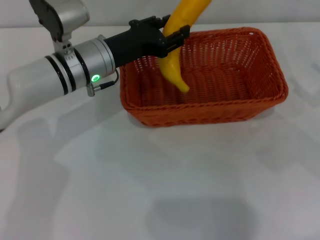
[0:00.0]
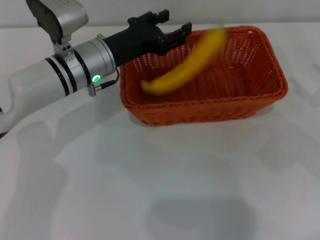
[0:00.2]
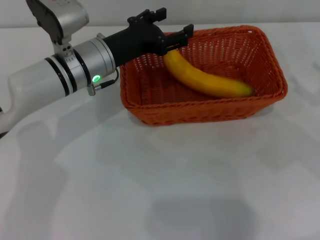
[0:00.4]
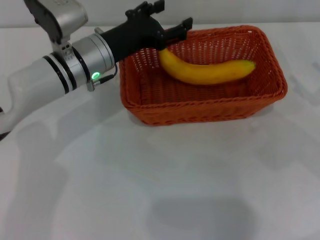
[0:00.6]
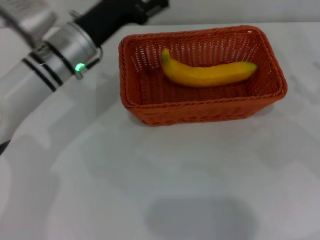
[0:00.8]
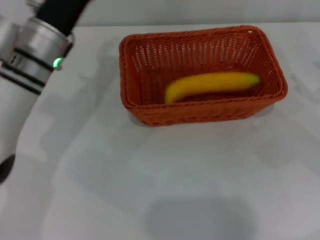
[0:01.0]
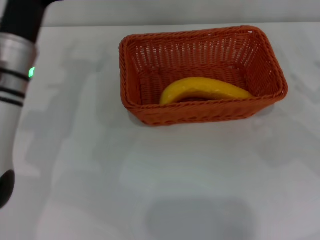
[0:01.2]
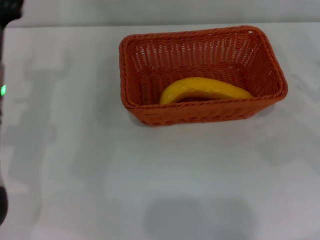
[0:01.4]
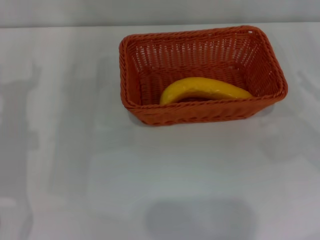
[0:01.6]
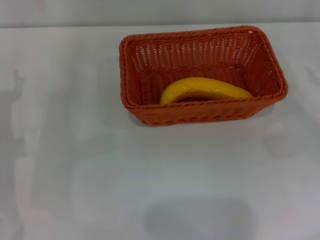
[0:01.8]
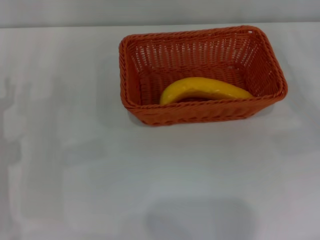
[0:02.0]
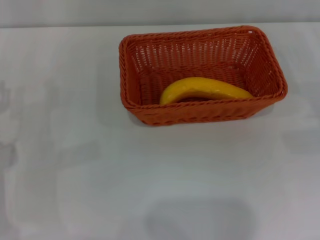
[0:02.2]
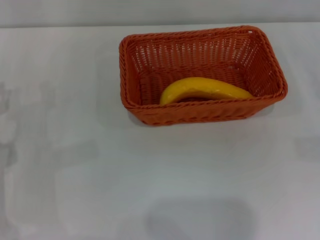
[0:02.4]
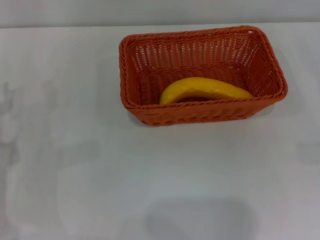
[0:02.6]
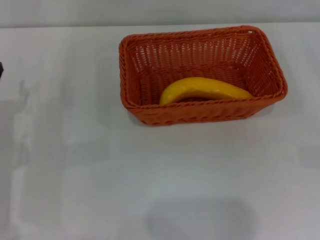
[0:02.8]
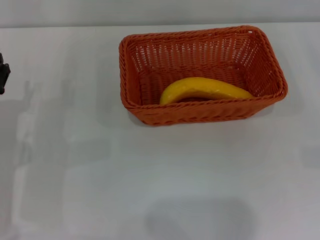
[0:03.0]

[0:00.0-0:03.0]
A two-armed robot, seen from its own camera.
0.0 to 1.6 s: The left gripper travels to the left and backward by approximately 15 cm, and opens up.

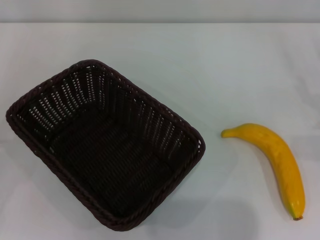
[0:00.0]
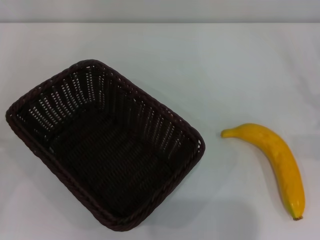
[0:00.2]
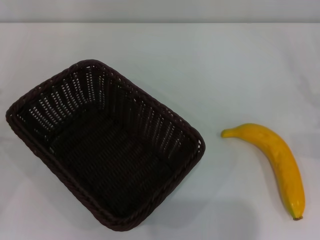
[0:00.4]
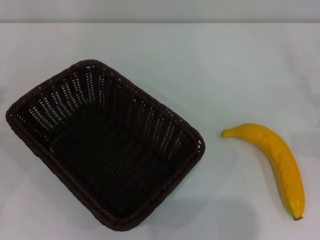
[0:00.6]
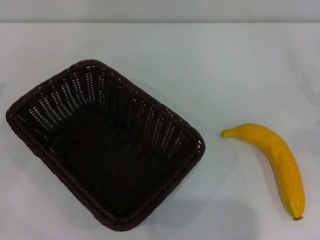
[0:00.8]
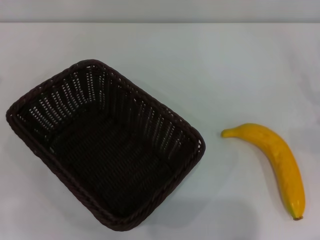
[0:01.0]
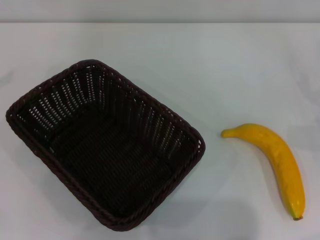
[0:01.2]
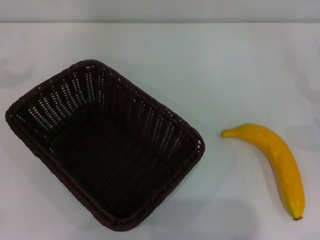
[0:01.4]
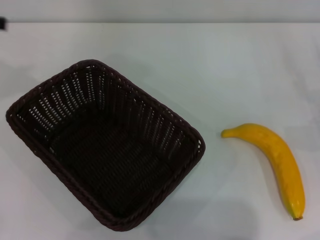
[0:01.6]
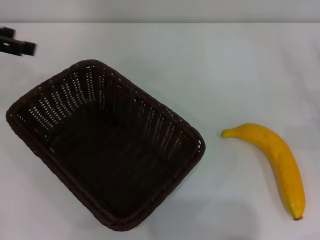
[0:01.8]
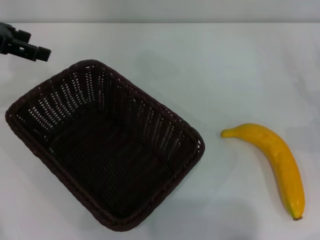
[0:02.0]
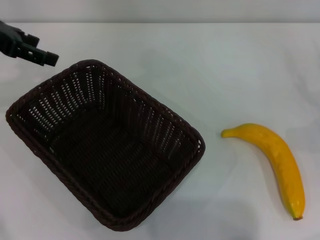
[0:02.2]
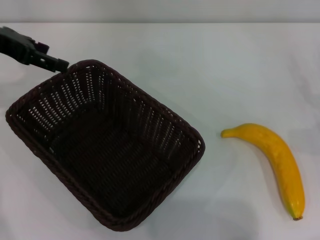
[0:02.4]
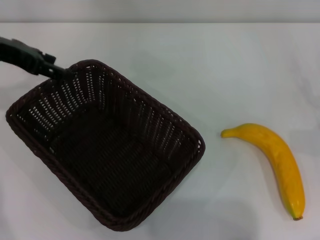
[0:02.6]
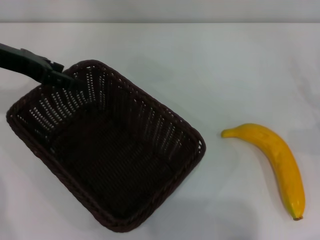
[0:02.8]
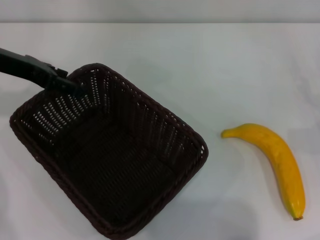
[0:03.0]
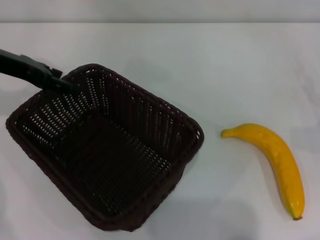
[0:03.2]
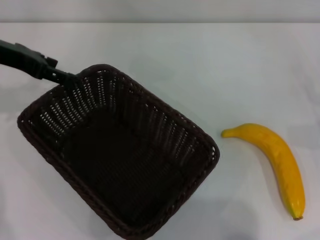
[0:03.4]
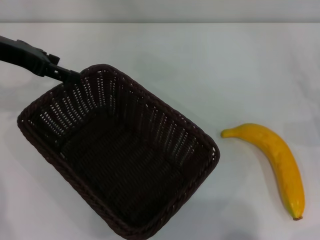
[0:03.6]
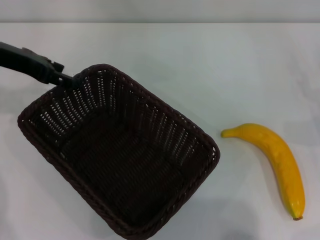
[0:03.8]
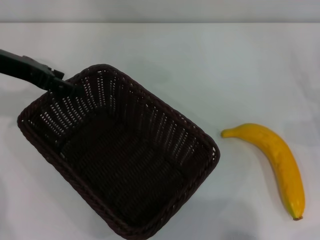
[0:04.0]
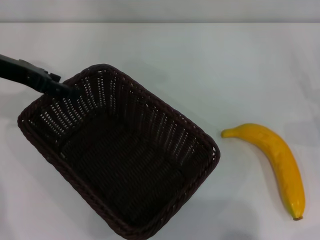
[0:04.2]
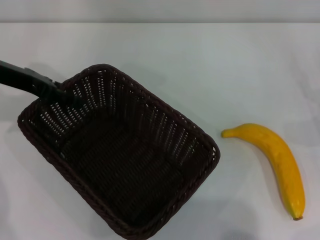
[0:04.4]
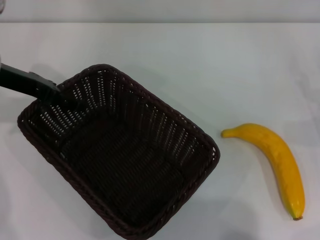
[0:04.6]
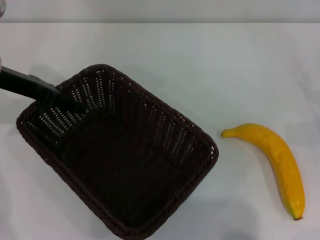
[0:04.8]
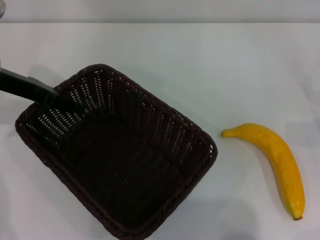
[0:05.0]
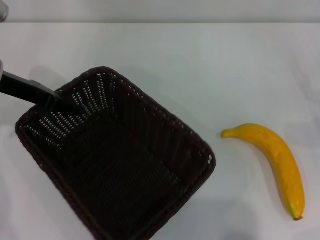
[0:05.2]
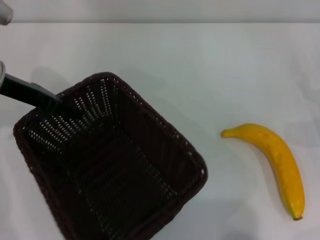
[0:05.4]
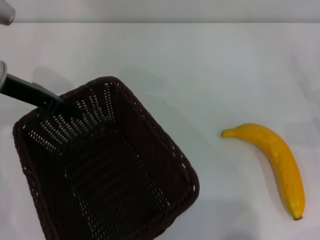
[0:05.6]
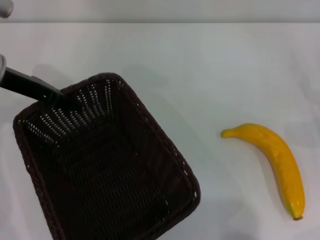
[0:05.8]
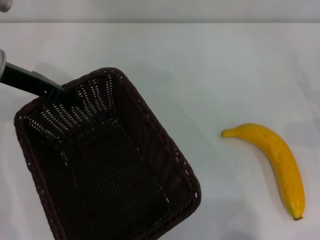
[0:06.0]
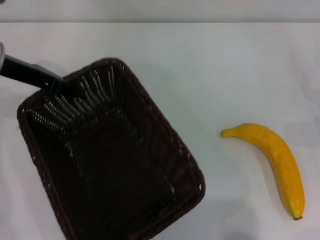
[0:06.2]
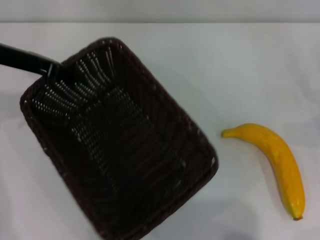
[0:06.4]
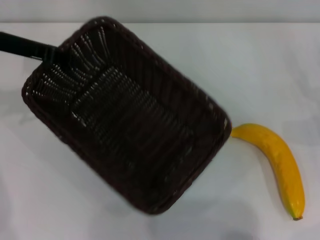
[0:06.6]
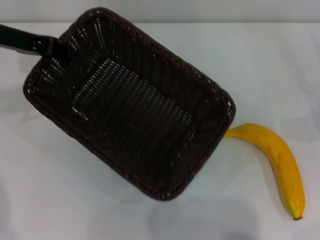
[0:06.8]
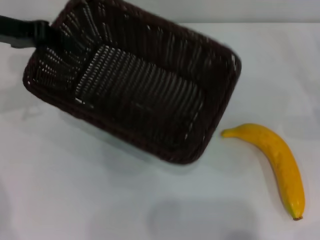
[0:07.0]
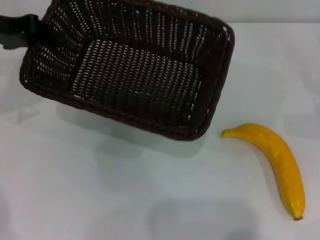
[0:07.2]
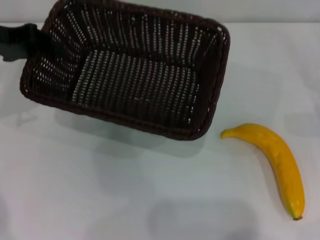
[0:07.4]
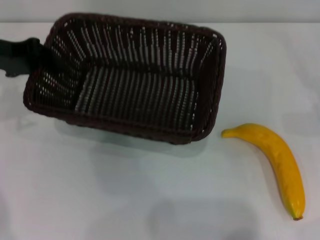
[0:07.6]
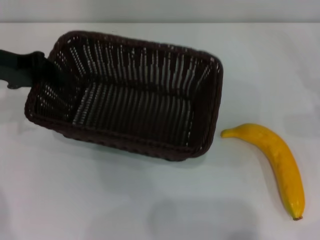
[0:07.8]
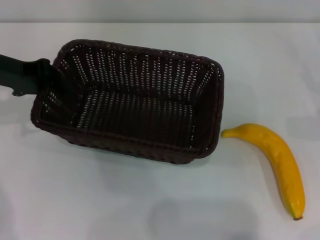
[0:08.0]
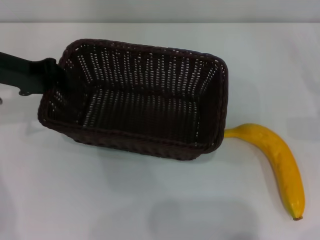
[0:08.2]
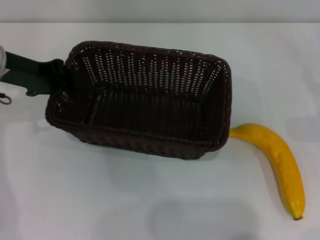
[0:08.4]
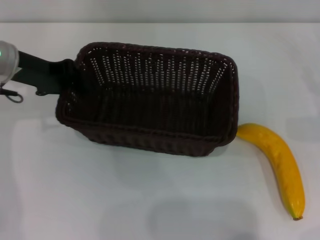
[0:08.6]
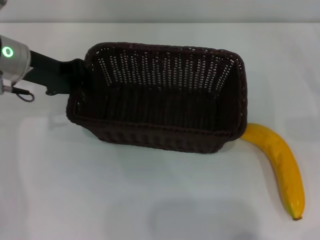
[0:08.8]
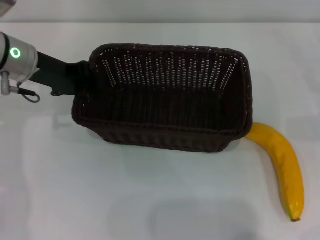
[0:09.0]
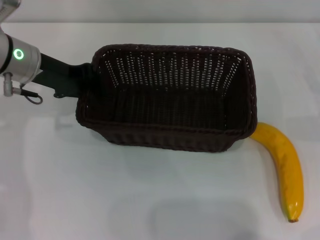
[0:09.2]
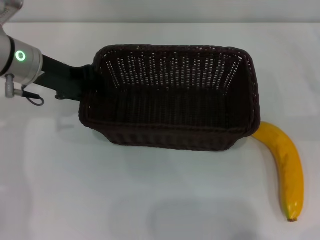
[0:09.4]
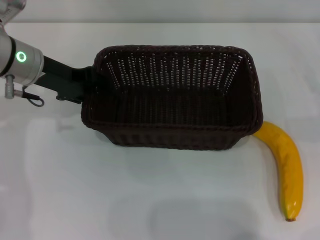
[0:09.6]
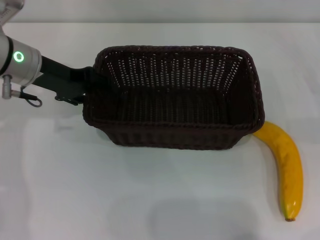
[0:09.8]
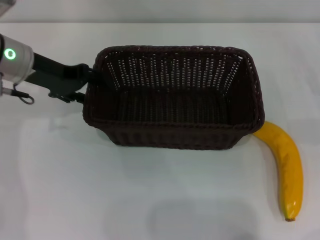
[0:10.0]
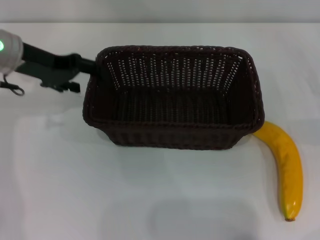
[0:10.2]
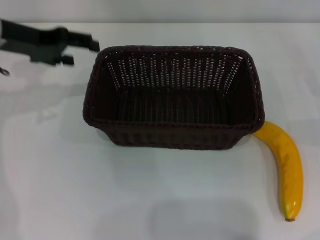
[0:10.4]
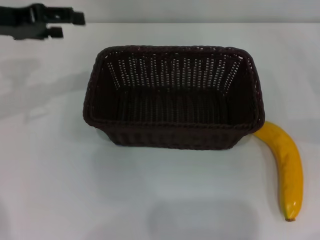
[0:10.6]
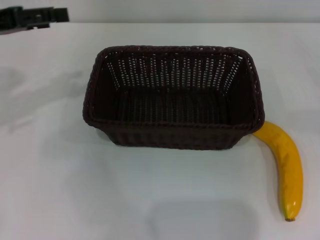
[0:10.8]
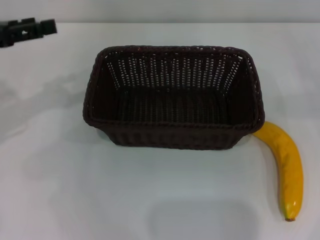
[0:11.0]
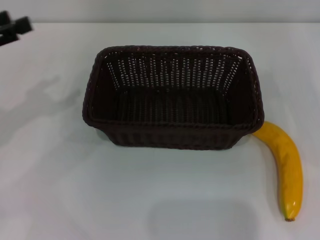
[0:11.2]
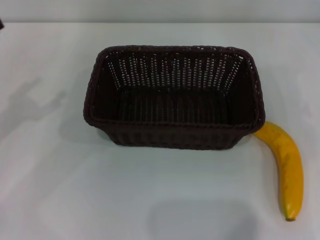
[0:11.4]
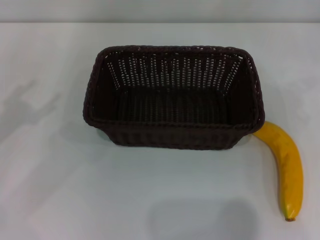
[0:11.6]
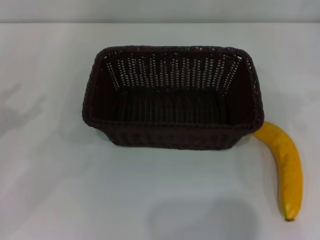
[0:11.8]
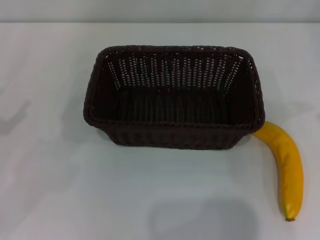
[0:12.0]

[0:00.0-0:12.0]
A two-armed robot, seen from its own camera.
Step, 0.0 to 6.6 s: Pick up the dark basket with the left gripper.
Step, 6.8 to 10.2 s: Place the dark basket in the center of view with the left gripper.
1.6 to 3.0 s: The left gripper travels to the right and downward by roughly 10 cm.
3.0 to 4.4 s: The grippers make only small movements.
4.4 to 6.0 s: The left gripper closes up.
7.6 to 9.0 s: The left gripper shifts about 5 cm to the right.
9.0 to 10.4 s: The left gripper travels upward by about 5 cm, and opens its fingers.
10.4 to 12.0 s: The left gripper goes some 20 cm backward and to the left.

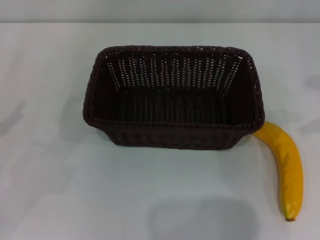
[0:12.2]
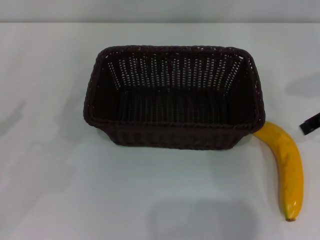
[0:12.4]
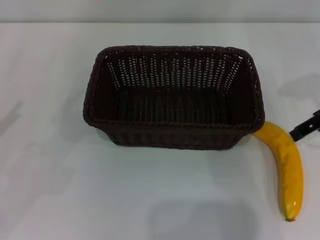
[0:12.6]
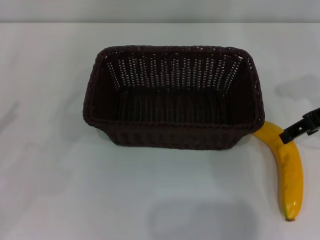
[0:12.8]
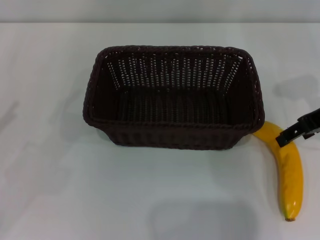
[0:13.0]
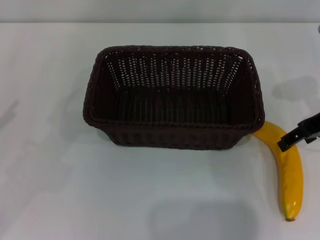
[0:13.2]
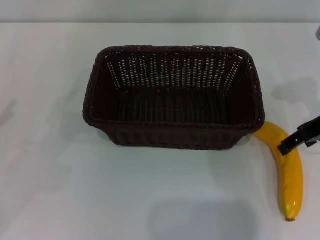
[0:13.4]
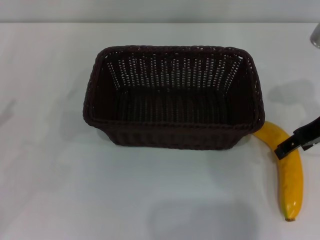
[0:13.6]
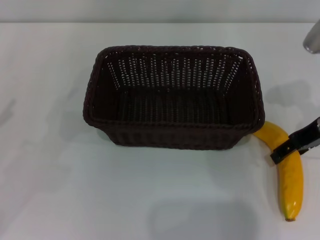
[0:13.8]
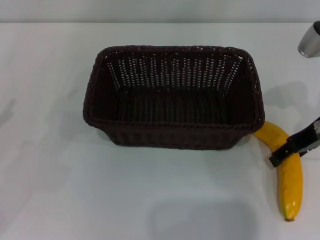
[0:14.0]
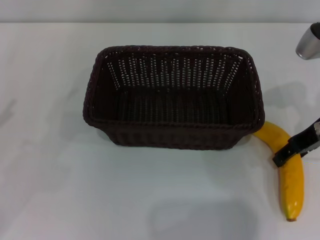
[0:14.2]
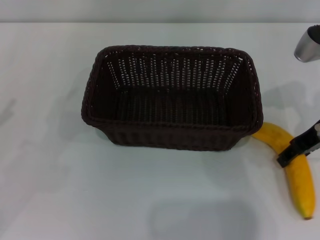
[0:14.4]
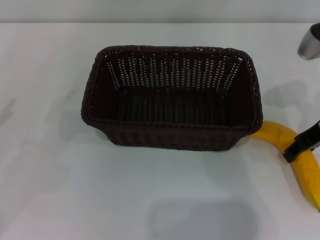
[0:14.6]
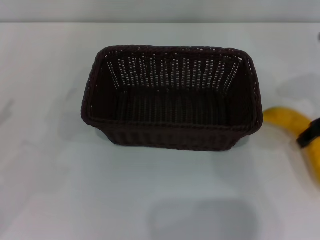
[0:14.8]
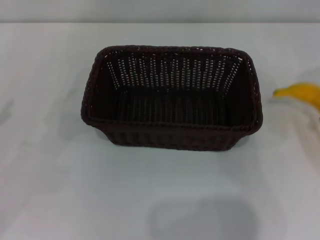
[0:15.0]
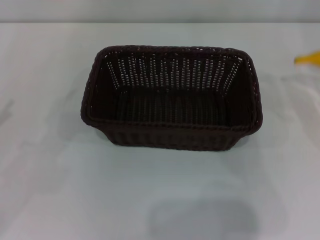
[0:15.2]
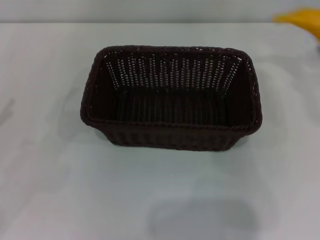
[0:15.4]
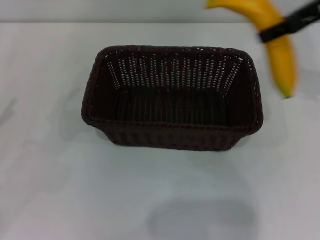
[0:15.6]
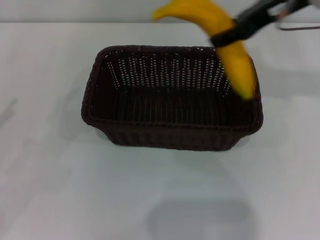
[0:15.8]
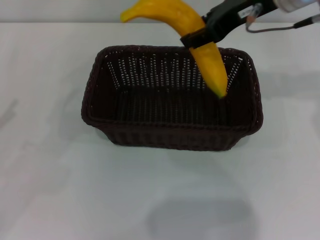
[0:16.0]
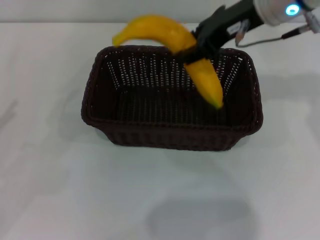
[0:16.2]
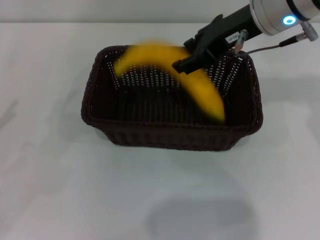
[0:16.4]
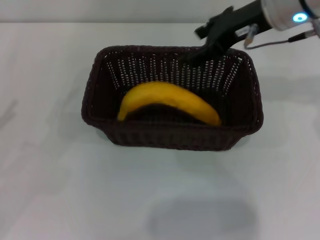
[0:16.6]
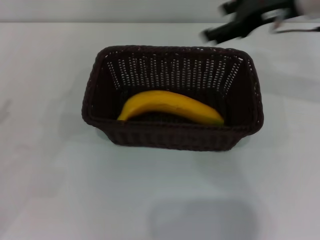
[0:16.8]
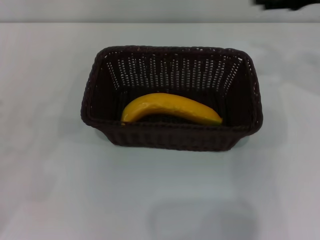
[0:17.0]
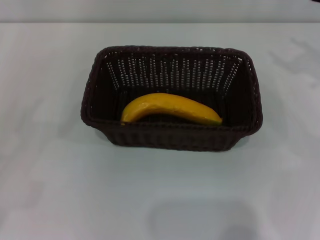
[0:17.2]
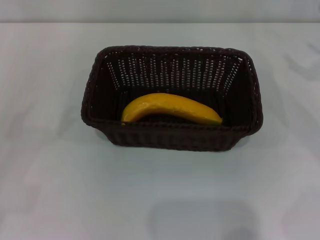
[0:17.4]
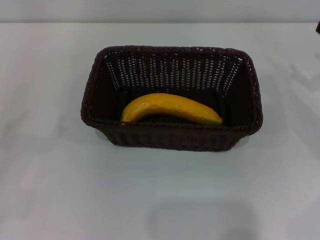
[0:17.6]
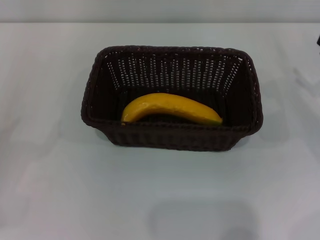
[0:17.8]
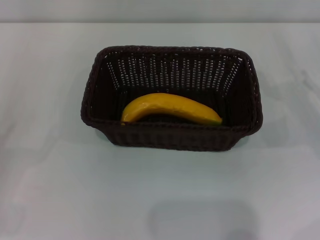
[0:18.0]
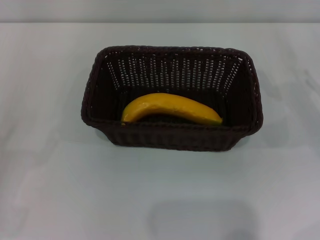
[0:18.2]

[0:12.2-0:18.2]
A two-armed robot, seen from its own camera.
Step, 12.2 to 15.4 s: Pick up the banana with the right gripper.
Step, 15.6 to 16.4 s: Place the banana into the dark basket with the right gripper.
12.2 to 13.8 s: The right gripper goes about 10 cm downward and to the left.
13.8 to 15.2 s: The right gripper shifts some 10 cm to the right and upward, and closes its fingers.
15.2 to 16.6 s: The right gripper moves to the left, some 20 cm.
16.6 to 18.2 s: The right gripper shifts some 30 cm to the right and downward, and opens its fingers, while the left gripper moves downward and backward, approximately 10 cm.

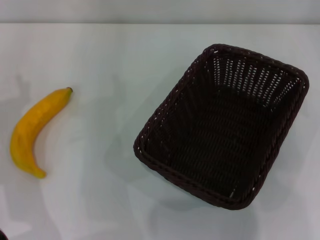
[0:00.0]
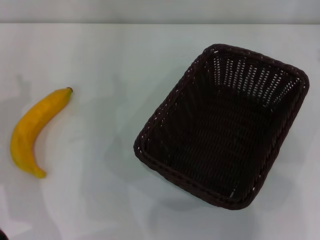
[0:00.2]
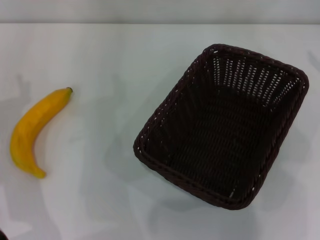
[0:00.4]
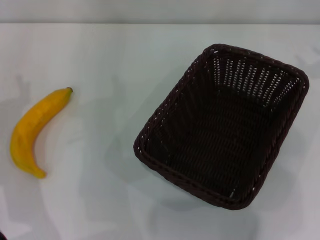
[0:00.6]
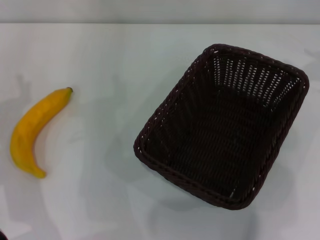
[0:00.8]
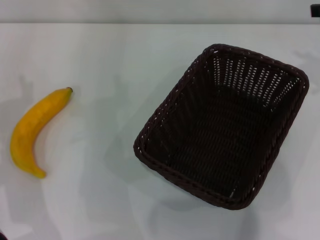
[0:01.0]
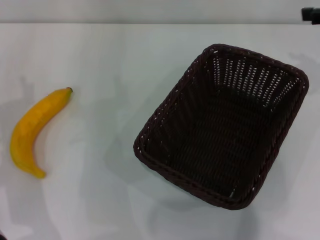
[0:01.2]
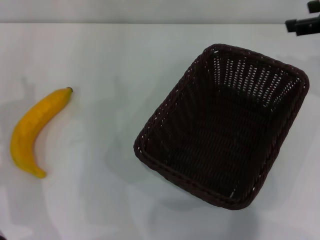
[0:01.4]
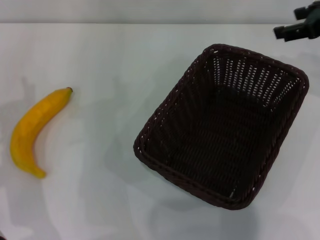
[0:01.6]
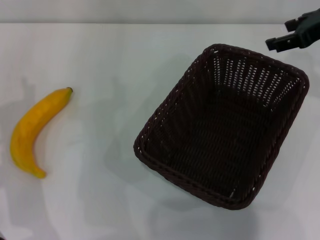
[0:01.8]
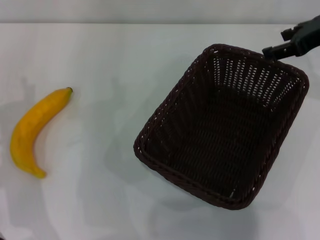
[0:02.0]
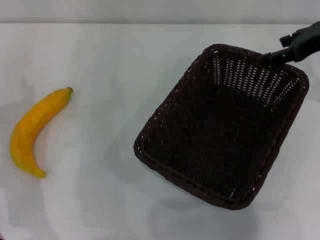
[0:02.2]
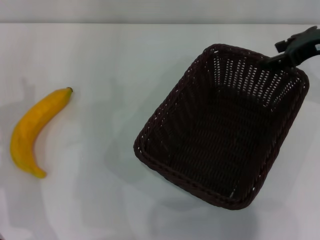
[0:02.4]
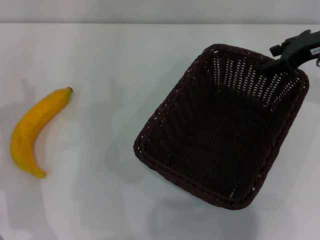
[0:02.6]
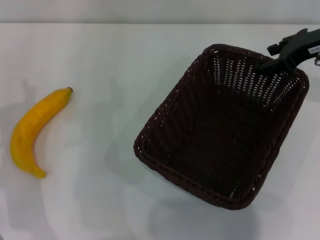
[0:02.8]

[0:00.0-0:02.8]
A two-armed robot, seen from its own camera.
0.0 to 1.4 s: The right gripper heads to the left, covering about 5 cm.
1.4 to 2.8 s: The right gripper moves roughly 5 cm.
